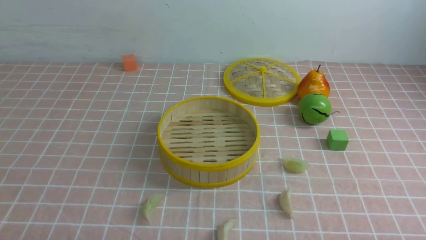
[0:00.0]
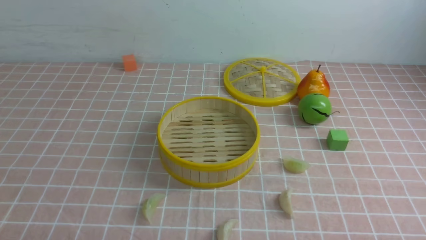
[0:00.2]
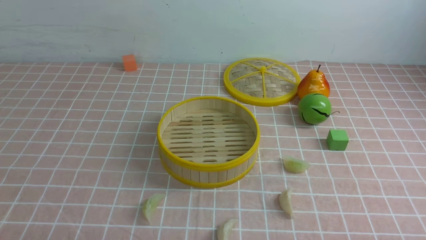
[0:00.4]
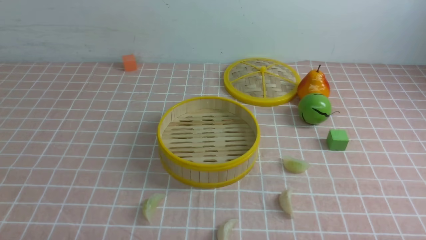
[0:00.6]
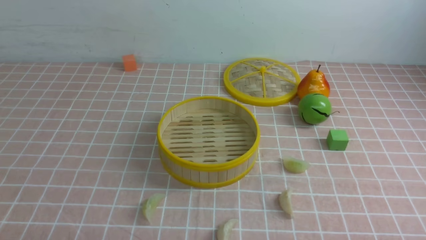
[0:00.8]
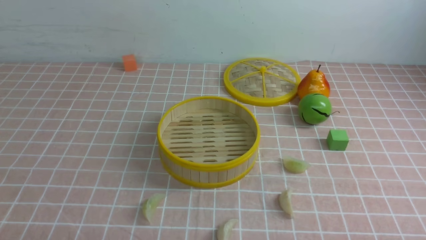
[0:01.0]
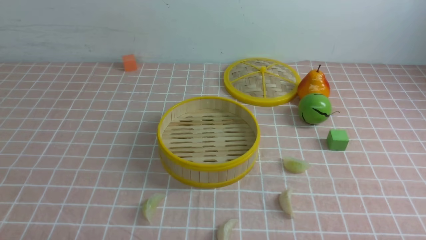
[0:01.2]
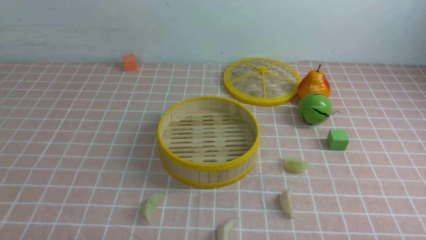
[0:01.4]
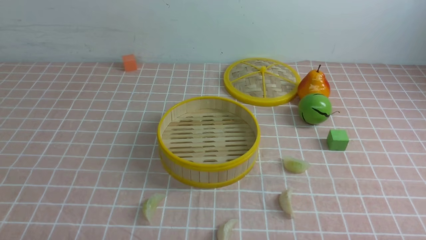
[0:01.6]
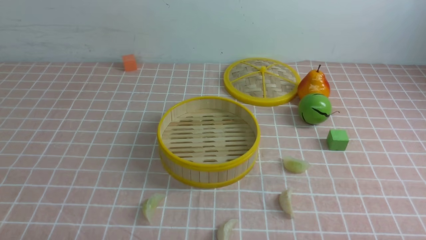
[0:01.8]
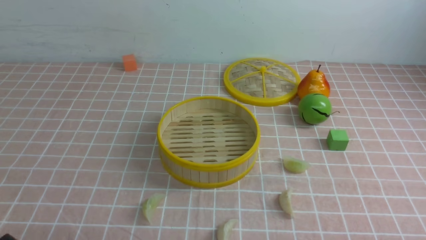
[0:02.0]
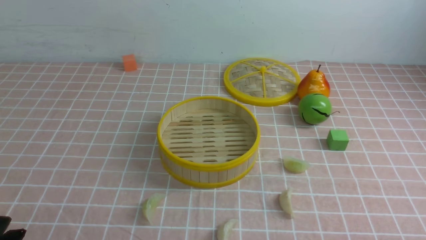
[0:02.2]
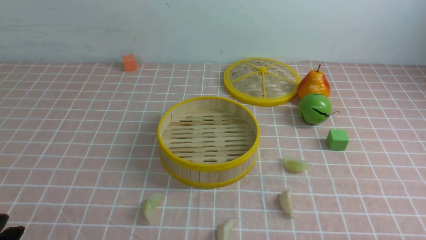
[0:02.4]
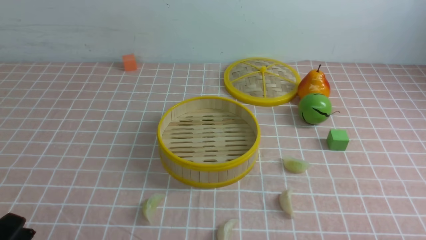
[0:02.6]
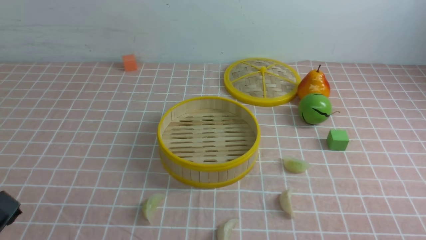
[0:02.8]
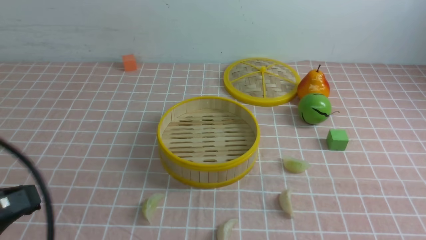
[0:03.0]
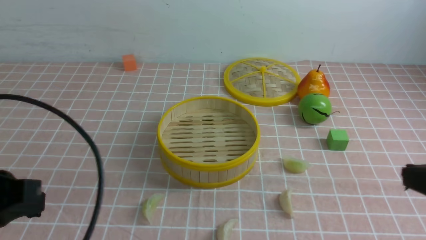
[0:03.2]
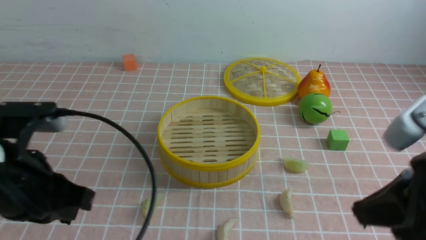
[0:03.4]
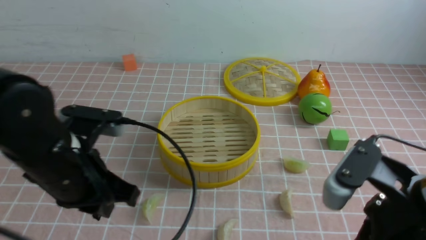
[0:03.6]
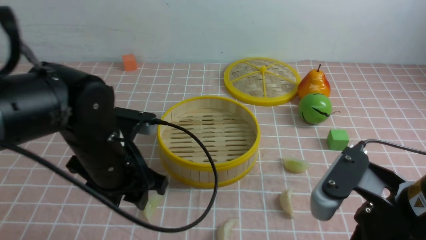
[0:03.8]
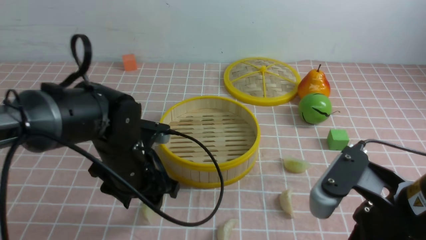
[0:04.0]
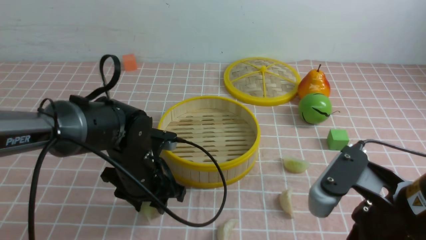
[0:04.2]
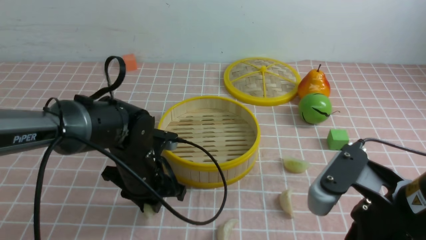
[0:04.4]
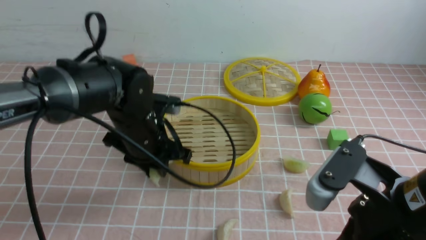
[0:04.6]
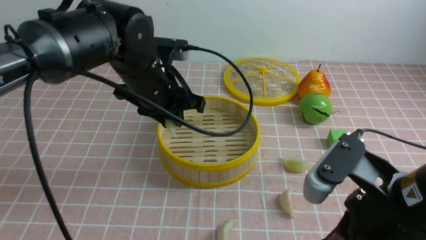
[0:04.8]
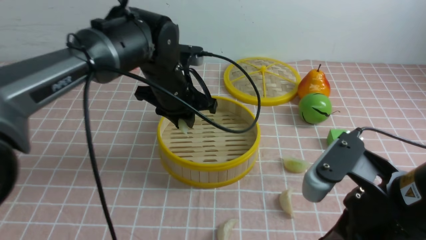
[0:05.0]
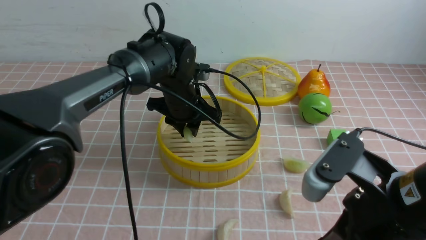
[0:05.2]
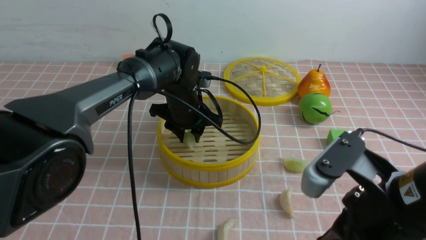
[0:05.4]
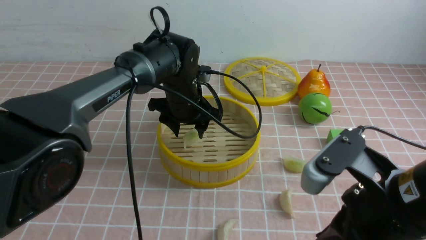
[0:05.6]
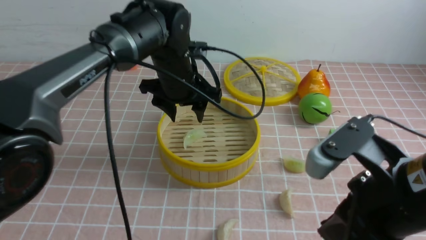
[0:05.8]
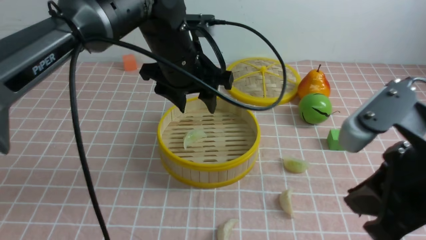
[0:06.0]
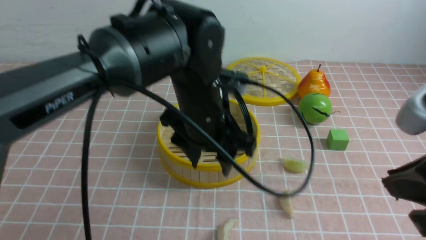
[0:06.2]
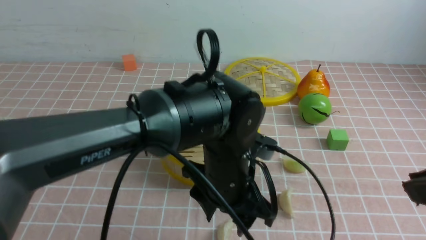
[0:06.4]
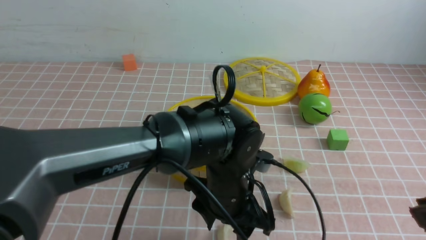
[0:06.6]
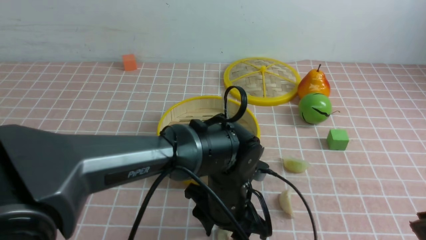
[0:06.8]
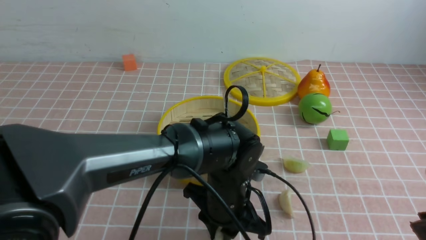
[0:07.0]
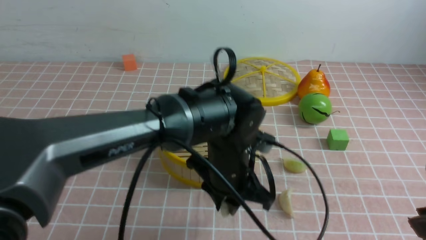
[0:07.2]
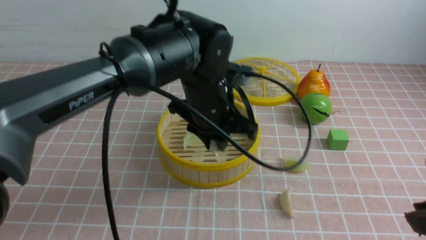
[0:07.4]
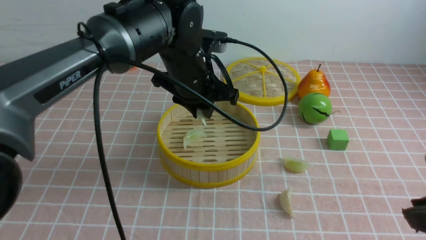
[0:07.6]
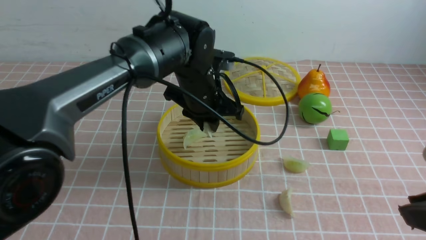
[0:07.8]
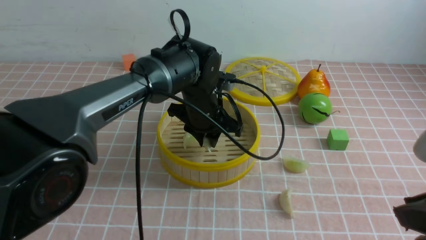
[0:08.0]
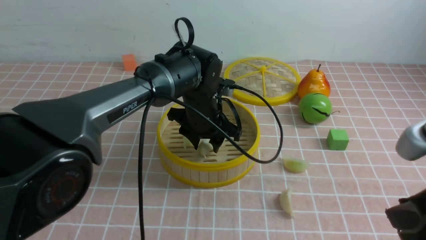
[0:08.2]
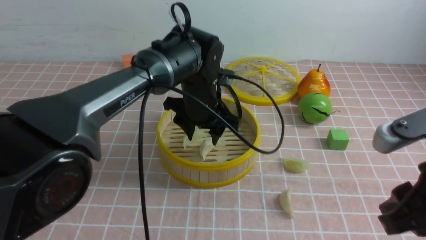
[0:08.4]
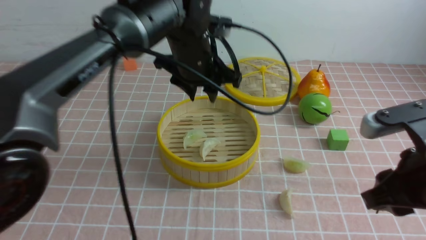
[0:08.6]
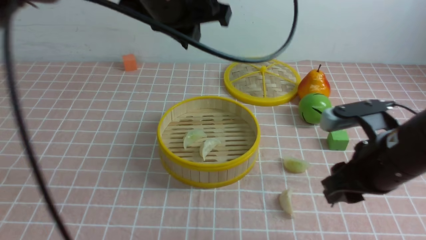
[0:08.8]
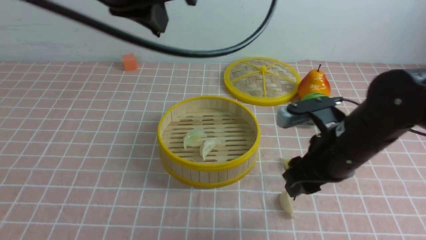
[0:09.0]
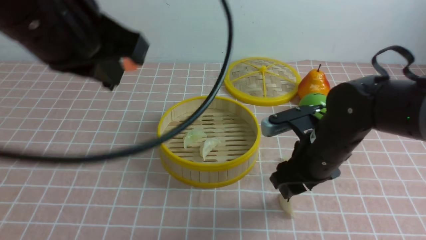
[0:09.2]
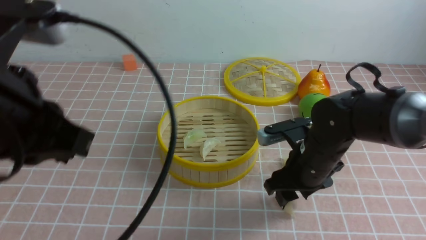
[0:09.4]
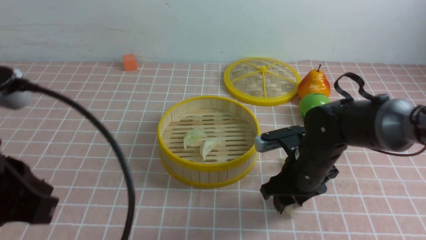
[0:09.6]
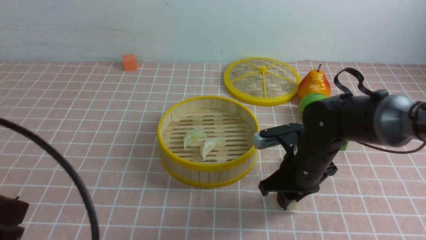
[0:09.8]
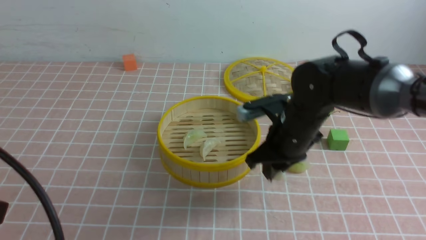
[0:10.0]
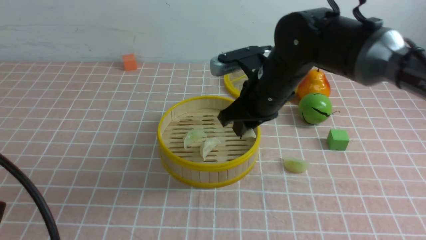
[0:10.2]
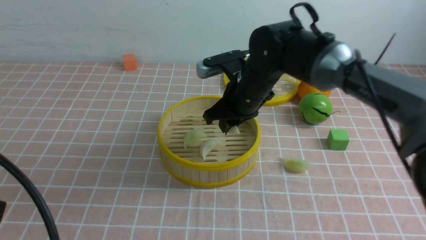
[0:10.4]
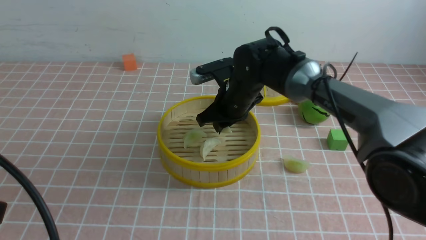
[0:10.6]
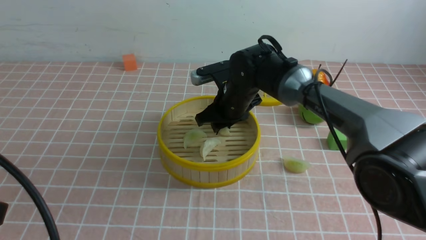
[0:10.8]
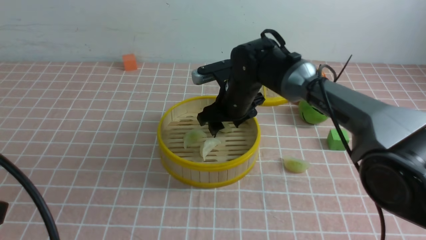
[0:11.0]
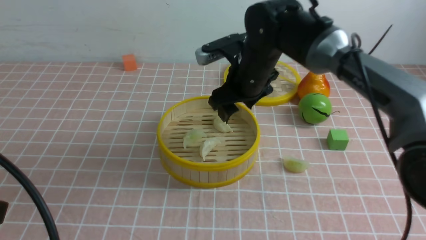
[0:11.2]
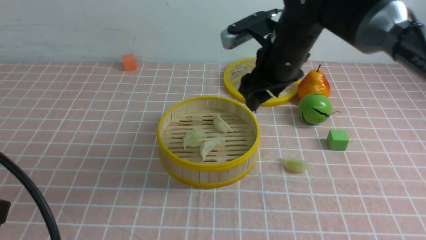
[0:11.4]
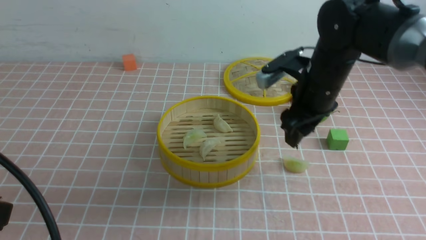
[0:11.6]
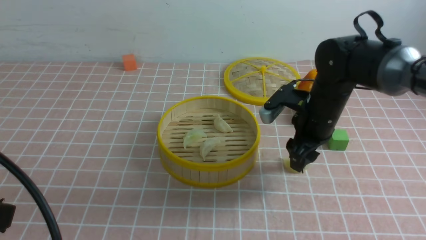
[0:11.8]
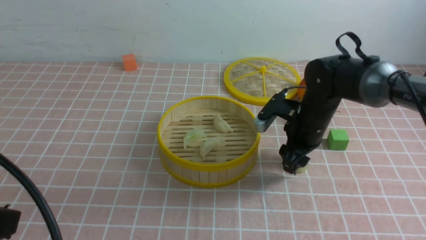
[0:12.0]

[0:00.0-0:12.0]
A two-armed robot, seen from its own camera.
Task of the whole recording: put the dumplings into the steamer on the table with the pink tablecloth.
Step, 0:00.0 to 0:04.4: use the left arm to grab a dumpling.
Step, 0:04.6 to 0:05.2: use the left arm to put the dumpling into the steamer.
Step, 0:05.6 to 0:07.0: use the left arm to grab a dumpling.
Step, 0:07.2 to 0:08.2: use the left arm to put the dumpling into the steamer.
Step, 0:08.4 to 0:09.8: use the right arm to grab a dumpling.
Step, 0:10.0 to 0:10.8: use the right arm to put the dumpling into the steamer.
0:01.6 to 0:03.0: The left gripper heads upward, covering roughly 15 cm.
0:03.0 to 0:04.4: The left gripper travels forward, to the right and downward by about 30 cm, and opens its fingers. Meanwhile the right gripper moves to the left and forward, some 15 cm.
0:04.4 to 0:06.0: The left gripper travels upward, forward and to the right by roughly 15 cm, and opens up.
0:06.0 to 0:07.6: The left gripper travels downward and back again, roughly 15 cm each way, and closes up; the right gripper moves to the right, some 5 cm.
0:07.6 to 0:09.0: The left gripper heads upward and to the left, covering roughly 20 cm, and opens, then closes once more. The right gripper moves forward and downward, about 20 cm, and opens.
0:09.0 to 0:10.4: The right gripper travels forward and to the left by approximately 20 cm, and closes its fingers. Meanwhile the left gripper goes roughly 25 cm backward and to the left.
0:10.4 to 0:12.0: The right gripper moves to the right and downward, about 10 cm, and opens its fingers.

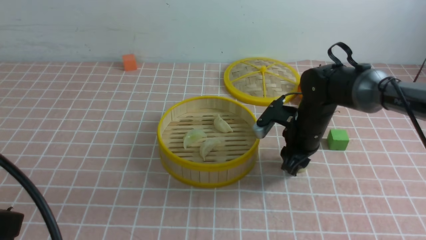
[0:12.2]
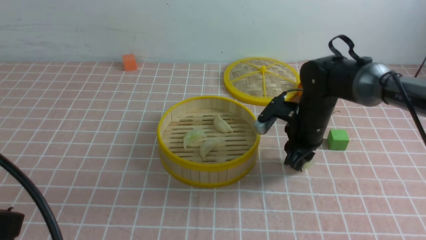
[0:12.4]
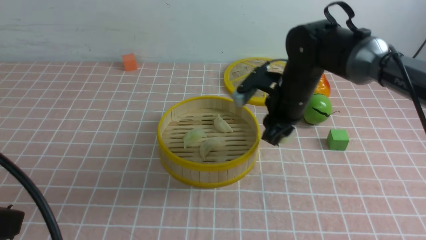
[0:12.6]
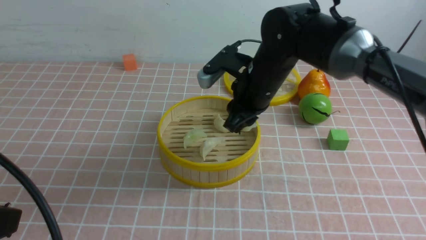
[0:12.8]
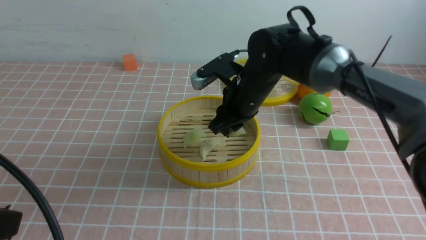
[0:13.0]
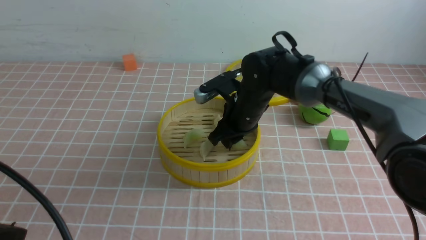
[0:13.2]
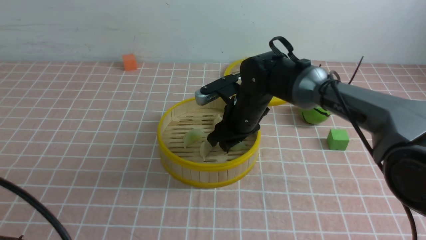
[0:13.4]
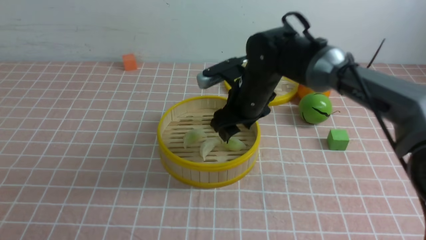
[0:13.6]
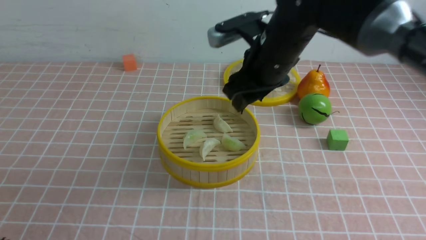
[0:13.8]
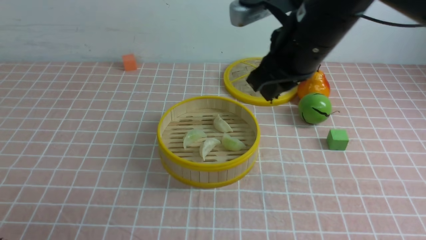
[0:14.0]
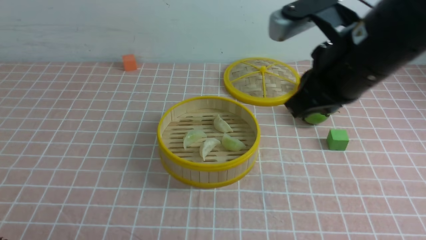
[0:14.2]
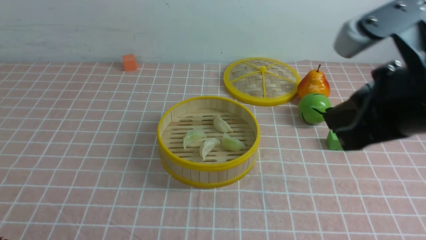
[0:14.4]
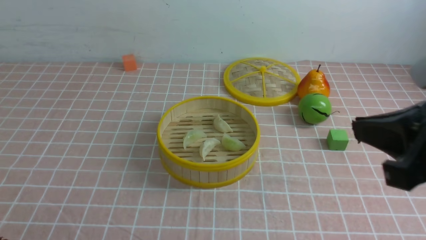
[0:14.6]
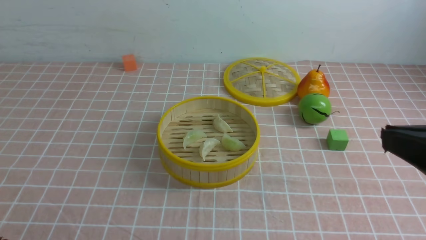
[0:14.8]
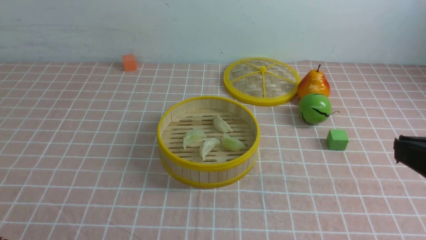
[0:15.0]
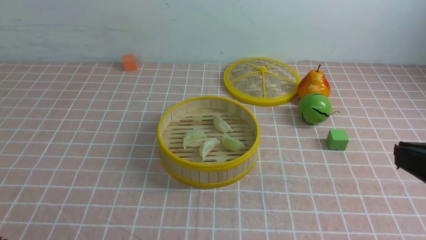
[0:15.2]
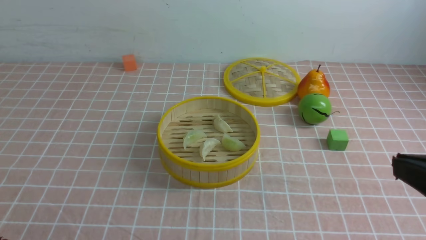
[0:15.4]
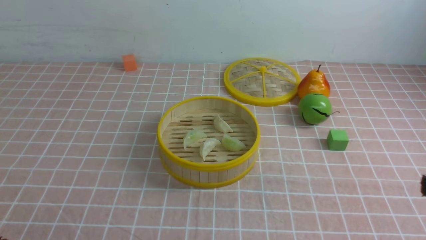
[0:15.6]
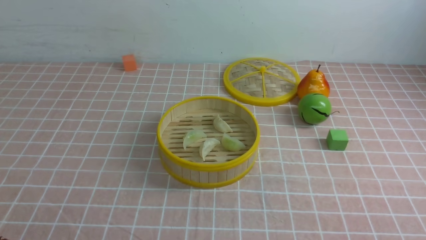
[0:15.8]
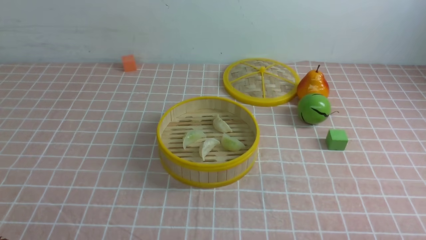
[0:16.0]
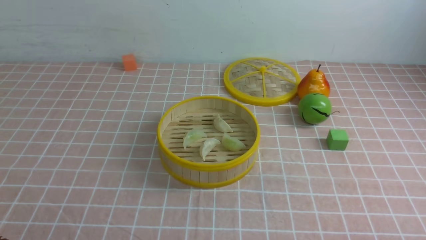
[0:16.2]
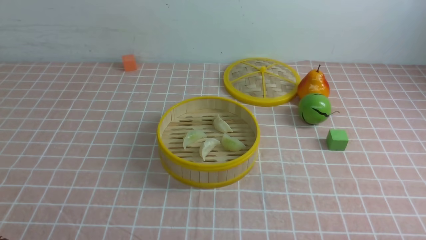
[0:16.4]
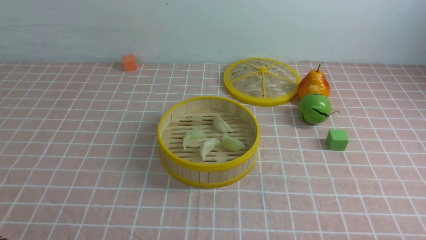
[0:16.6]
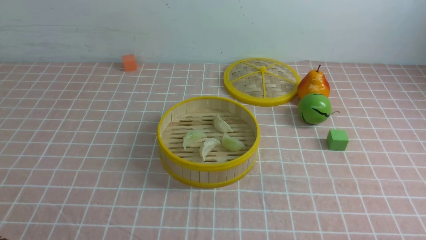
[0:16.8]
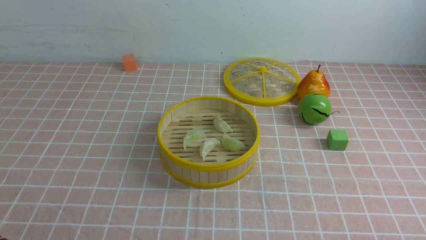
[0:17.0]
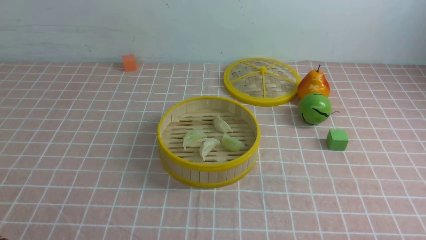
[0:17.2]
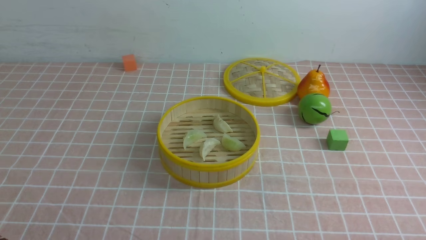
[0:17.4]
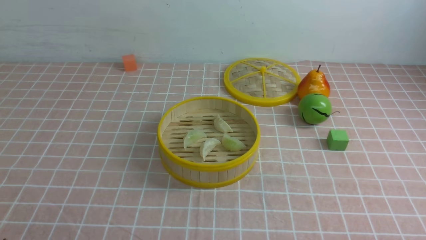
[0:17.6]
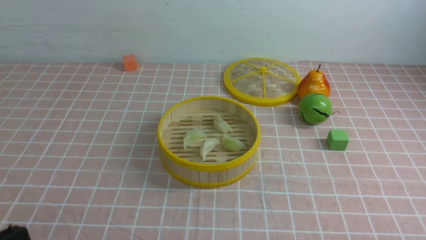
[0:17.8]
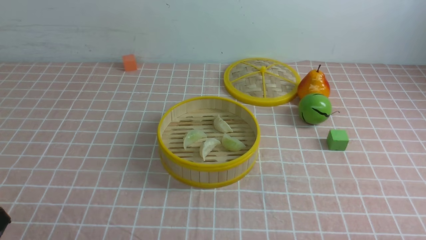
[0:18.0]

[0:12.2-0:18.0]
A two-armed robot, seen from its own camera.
Task of the whole recording: put the dumplings into the steamer on the table with the pink tablecloth.
Step, 0:12.6 to 0:13.4: use the right arm to put the dumpling into the steamer.
0:12.2 to 0:13.6: The left gripper heads downward, covering roughly 5 cm. The right gripper goes some 10 cm to the left and upward.
0:13.6 to 0:15.0: The right gripper moves backward and to the right, some 35 cm, and closes up.
0:15.0 to 0:16.6: The right gripper heads downward and to the right, covering about 20 cm.
